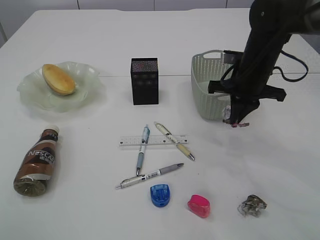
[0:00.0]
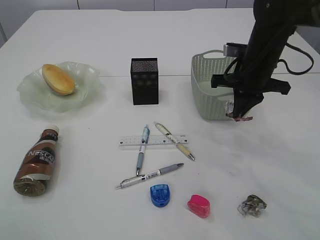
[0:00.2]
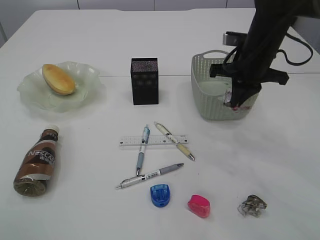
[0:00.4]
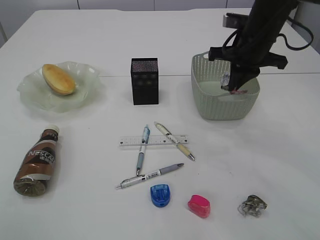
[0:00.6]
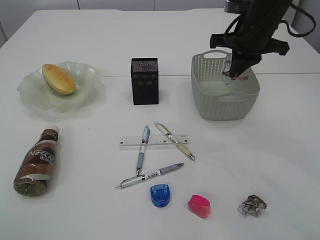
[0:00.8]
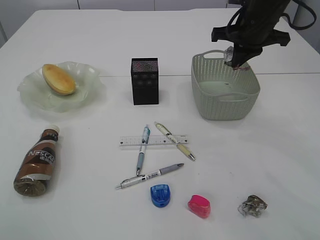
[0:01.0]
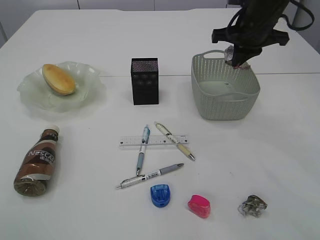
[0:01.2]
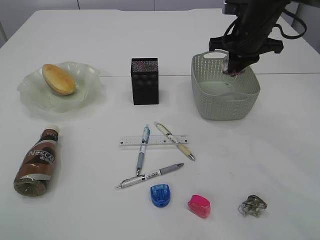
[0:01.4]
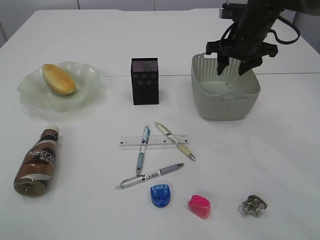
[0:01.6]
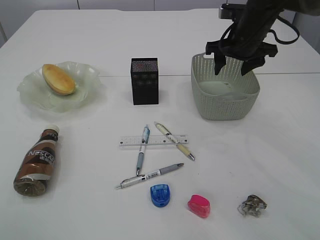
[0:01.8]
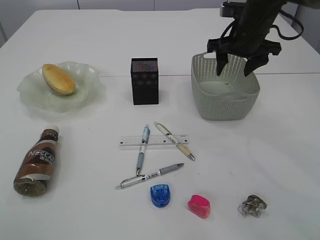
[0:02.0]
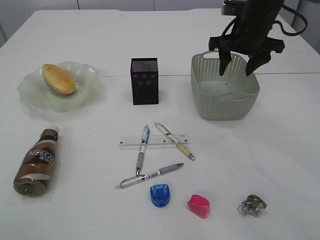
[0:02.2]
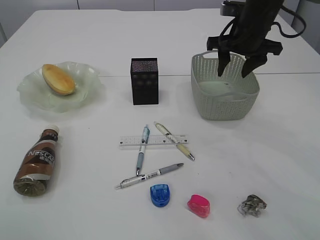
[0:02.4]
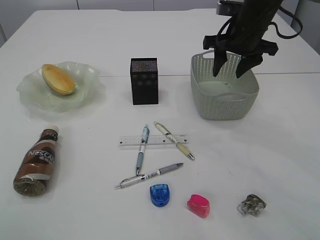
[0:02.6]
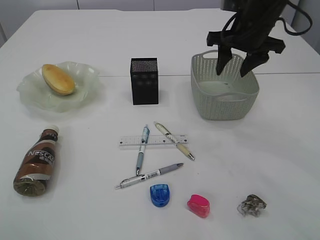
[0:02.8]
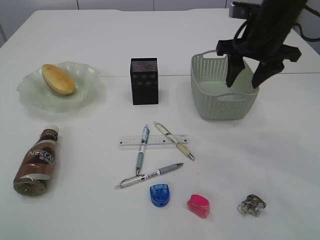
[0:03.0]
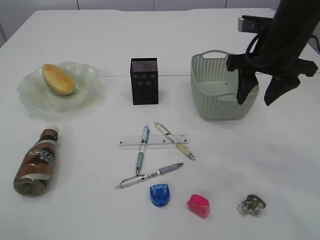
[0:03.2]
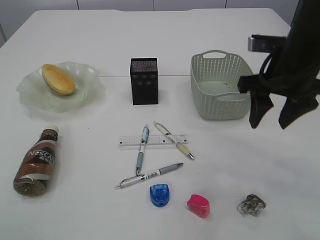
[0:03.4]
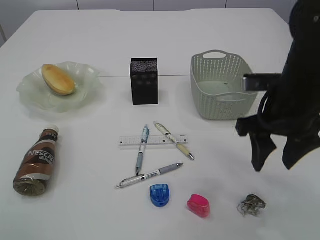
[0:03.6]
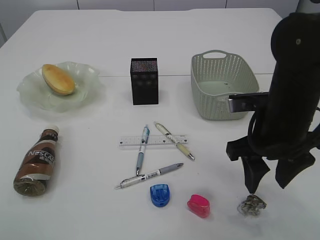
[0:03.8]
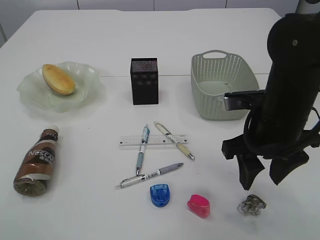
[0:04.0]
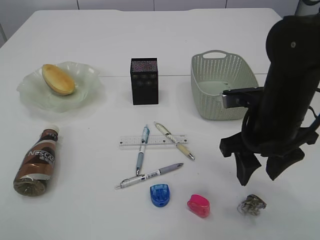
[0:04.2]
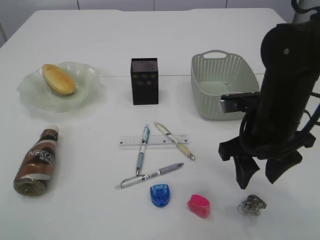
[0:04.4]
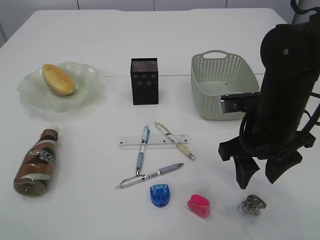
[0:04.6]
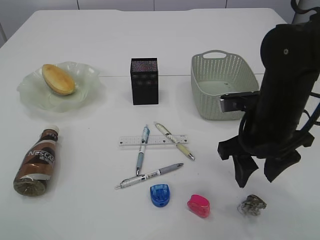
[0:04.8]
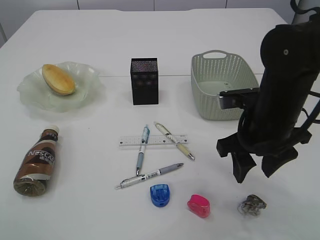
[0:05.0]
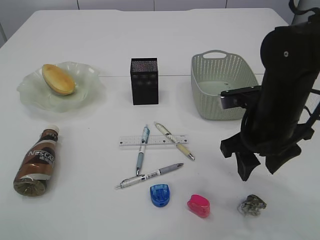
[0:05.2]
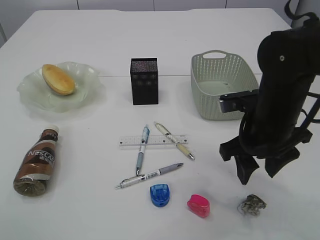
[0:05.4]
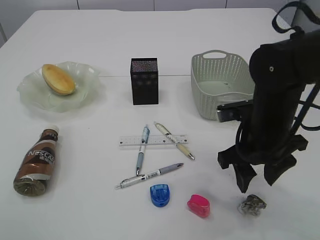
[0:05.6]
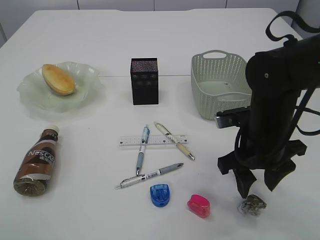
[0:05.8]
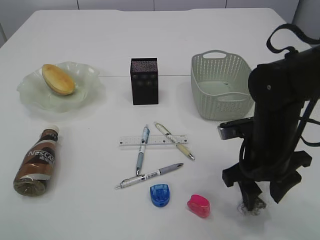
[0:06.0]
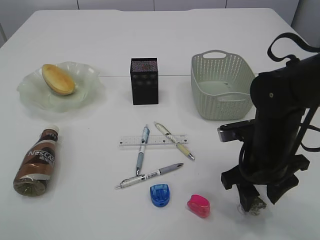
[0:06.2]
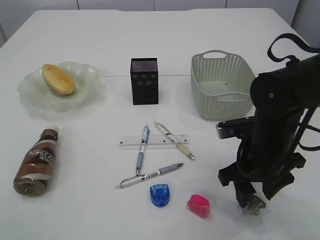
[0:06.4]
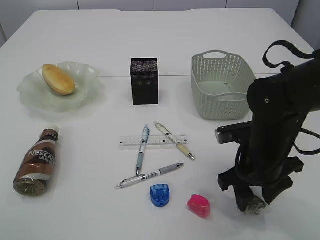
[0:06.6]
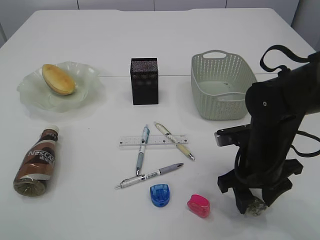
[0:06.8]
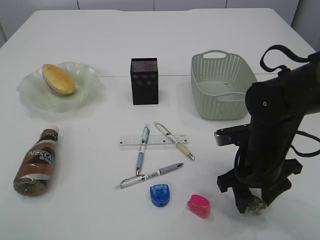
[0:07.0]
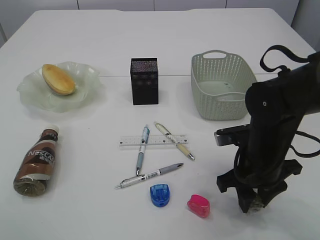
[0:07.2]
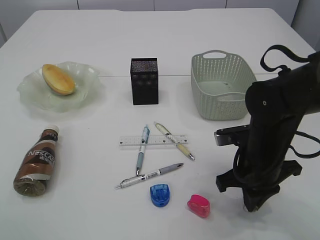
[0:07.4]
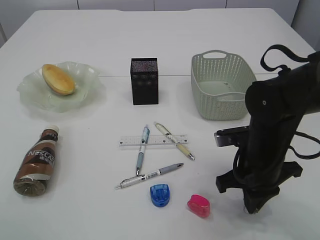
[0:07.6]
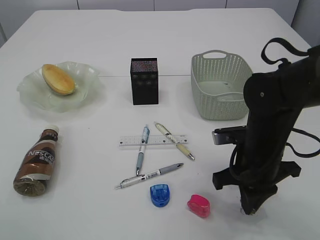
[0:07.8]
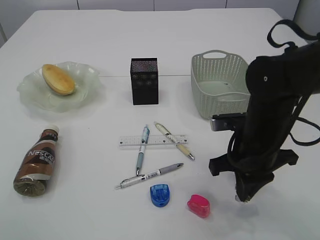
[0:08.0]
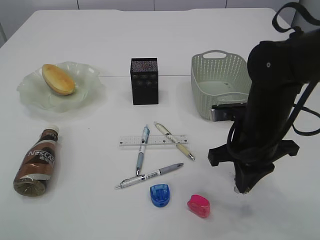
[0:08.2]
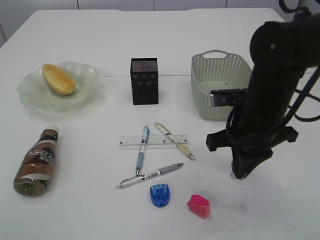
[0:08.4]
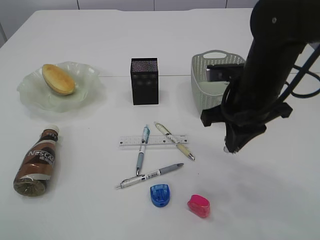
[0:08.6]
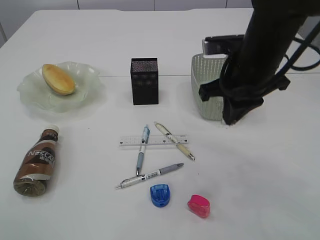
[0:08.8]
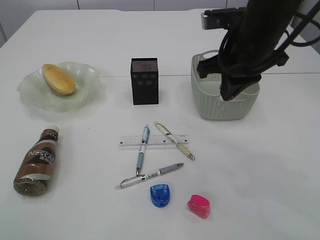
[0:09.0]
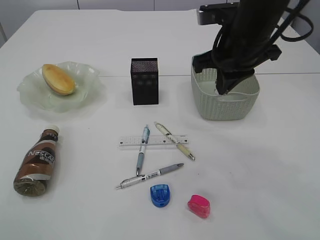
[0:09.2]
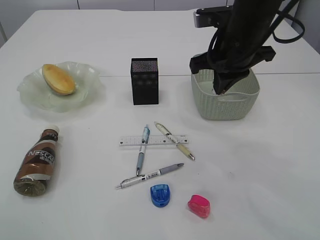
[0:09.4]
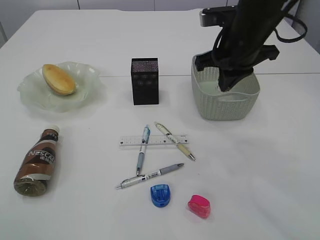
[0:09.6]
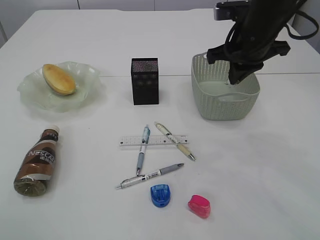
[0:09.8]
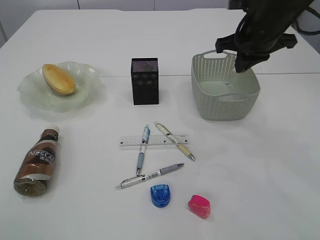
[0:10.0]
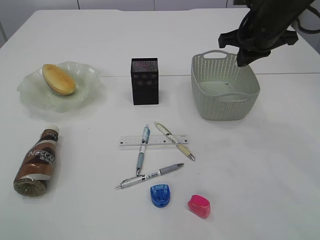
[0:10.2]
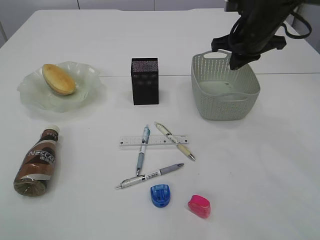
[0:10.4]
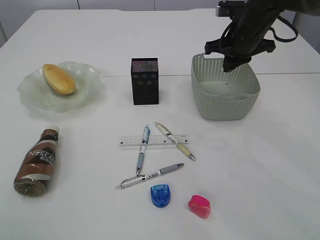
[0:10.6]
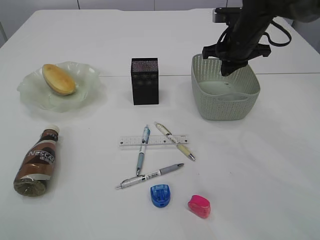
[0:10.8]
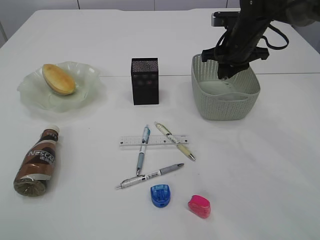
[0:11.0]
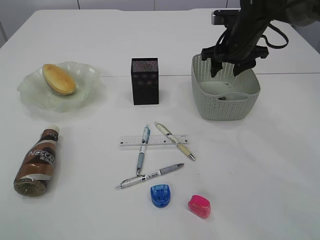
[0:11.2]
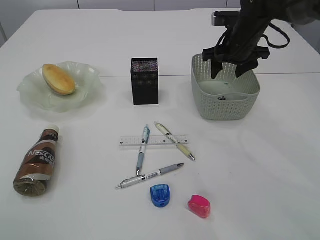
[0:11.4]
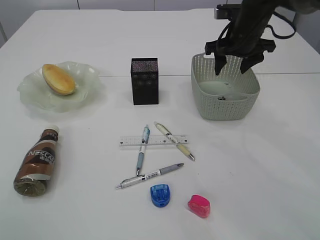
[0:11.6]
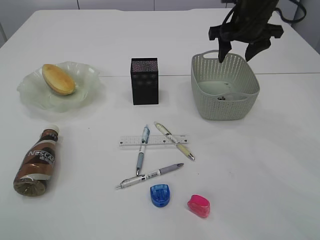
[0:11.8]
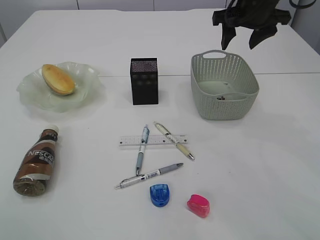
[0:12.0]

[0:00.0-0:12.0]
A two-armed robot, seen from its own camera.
Step, 0:00.4 to 0:02.8: Place the waste paper in the basket.
Step, 0:03.0 to 0:08.6: Pick up the waste paper.
Step, 0:08.8 to 0:11.6: Place the waste paper in the basket.
0:00.0 to 0:01.6: The right gripper is displaced forward by some 5 cm, and opens up.
0:01.6 to 0:03.0: The right gripper heads backward, covering some 5 cm.
0:03.0 to 0:04.4: The right gripper travels backward and downward by roughly 15 cm.
0:04.4 to 0:06.0: There are only small adjustments of the grippers.
0:06.0 to 0:07.6: The right gripper closes up.
0:07.6 to 0:09.0: The right gripper travels upward and forward by about 15 cm.
0:09.0 to 0:10.4: The right gripper travels forward and to the right by approximately 10 cm.
0:10.4 to 0:12.0: The right gripper opens up.

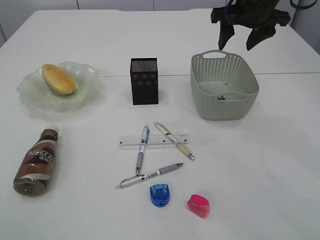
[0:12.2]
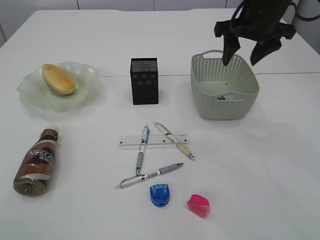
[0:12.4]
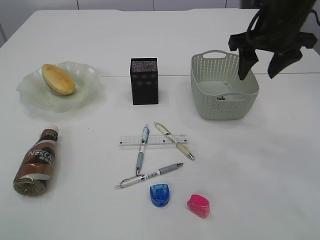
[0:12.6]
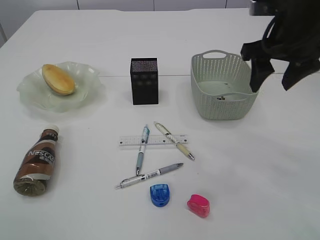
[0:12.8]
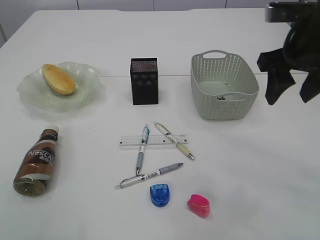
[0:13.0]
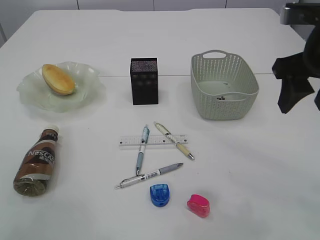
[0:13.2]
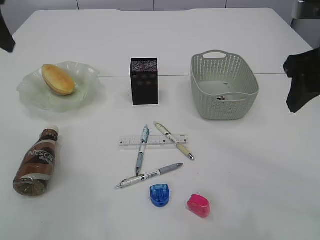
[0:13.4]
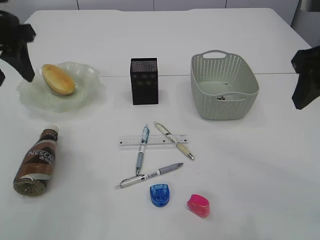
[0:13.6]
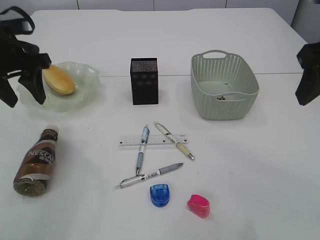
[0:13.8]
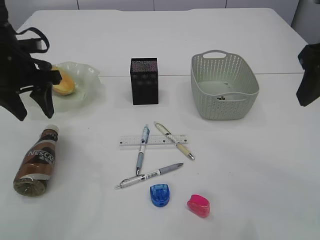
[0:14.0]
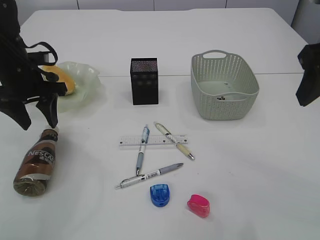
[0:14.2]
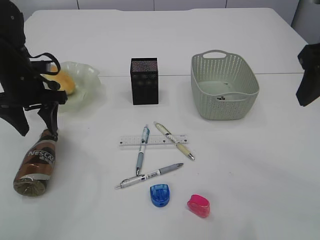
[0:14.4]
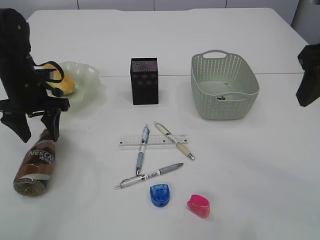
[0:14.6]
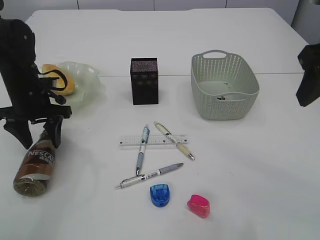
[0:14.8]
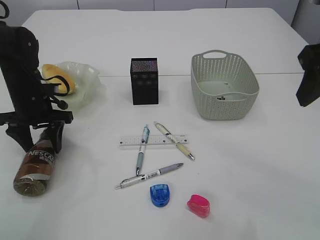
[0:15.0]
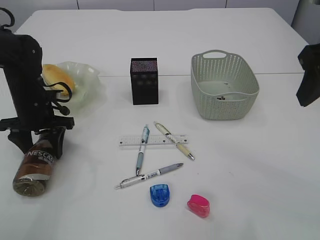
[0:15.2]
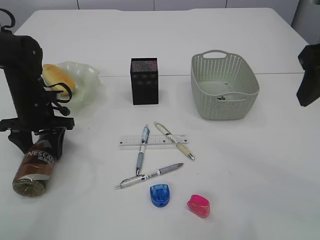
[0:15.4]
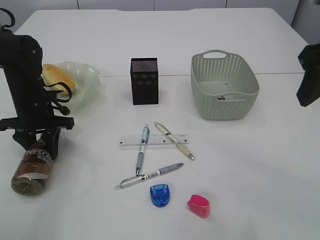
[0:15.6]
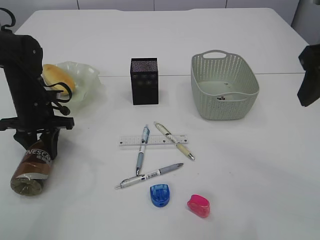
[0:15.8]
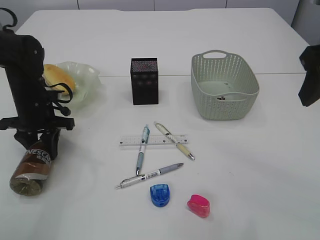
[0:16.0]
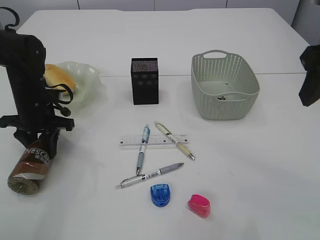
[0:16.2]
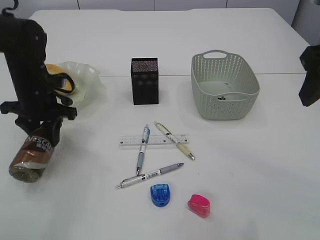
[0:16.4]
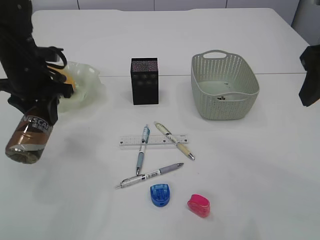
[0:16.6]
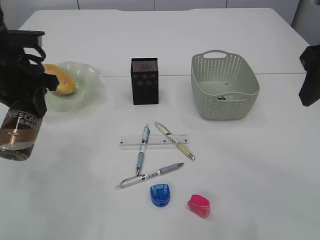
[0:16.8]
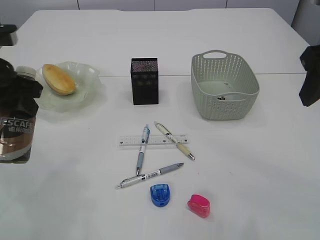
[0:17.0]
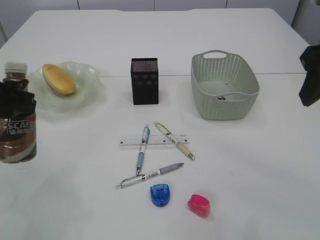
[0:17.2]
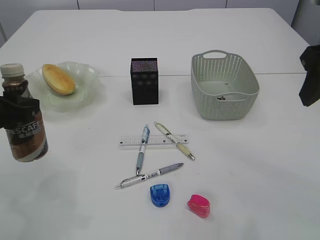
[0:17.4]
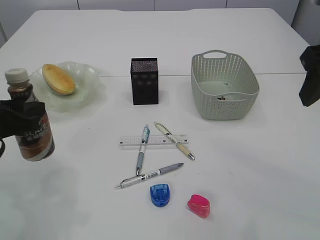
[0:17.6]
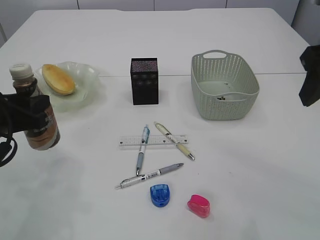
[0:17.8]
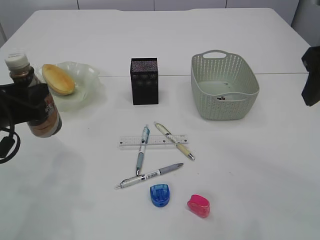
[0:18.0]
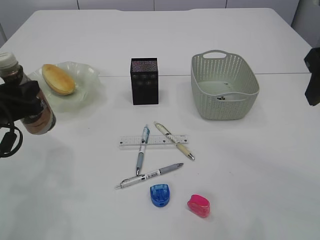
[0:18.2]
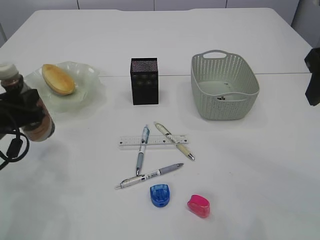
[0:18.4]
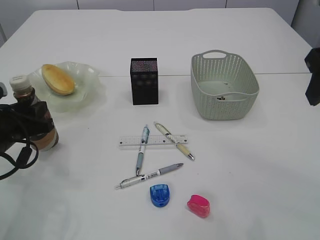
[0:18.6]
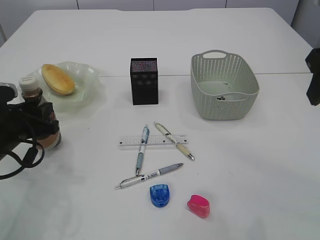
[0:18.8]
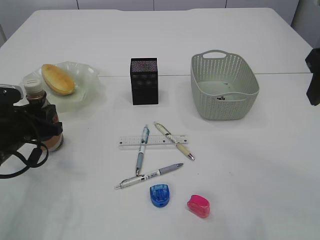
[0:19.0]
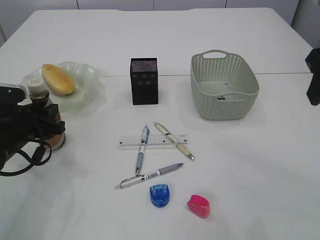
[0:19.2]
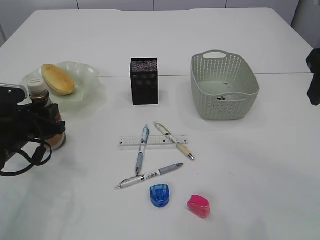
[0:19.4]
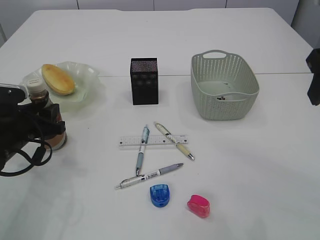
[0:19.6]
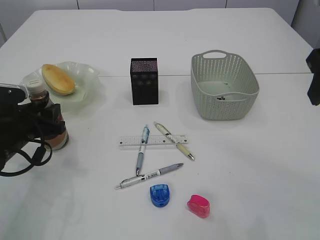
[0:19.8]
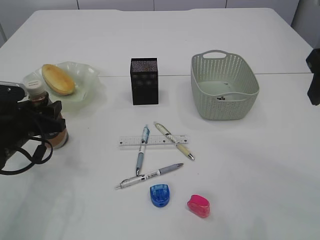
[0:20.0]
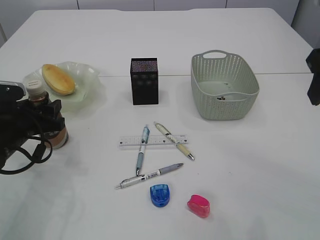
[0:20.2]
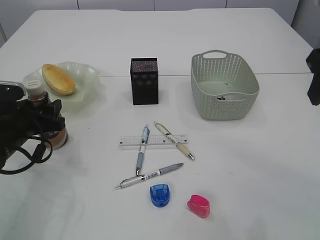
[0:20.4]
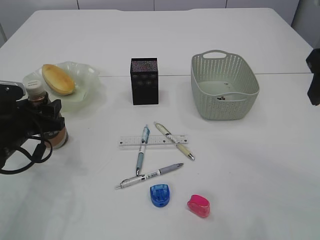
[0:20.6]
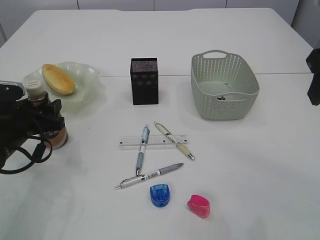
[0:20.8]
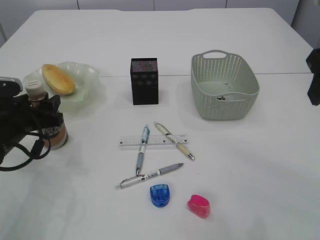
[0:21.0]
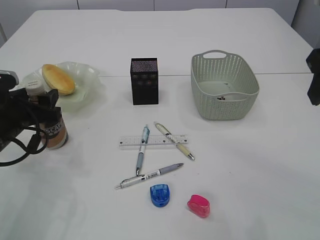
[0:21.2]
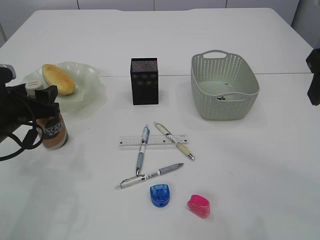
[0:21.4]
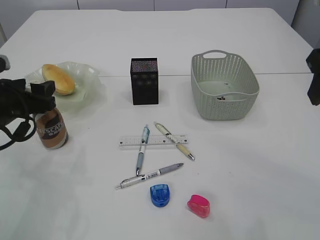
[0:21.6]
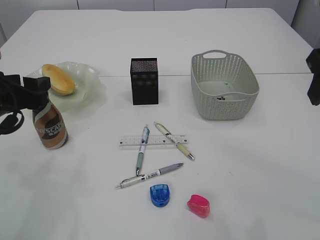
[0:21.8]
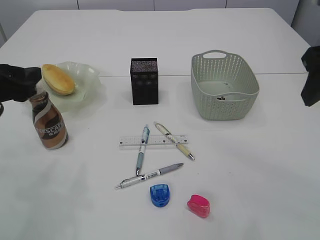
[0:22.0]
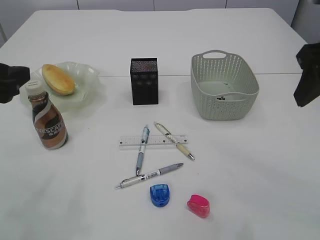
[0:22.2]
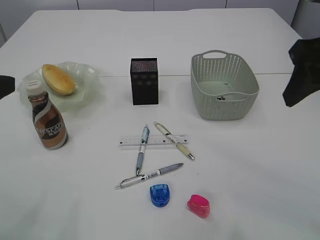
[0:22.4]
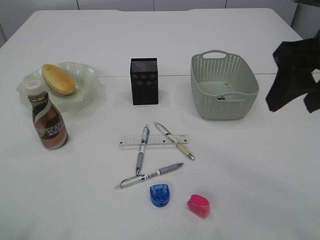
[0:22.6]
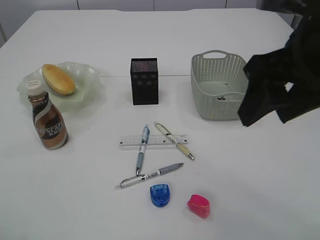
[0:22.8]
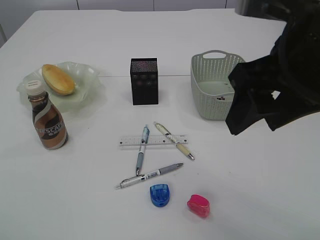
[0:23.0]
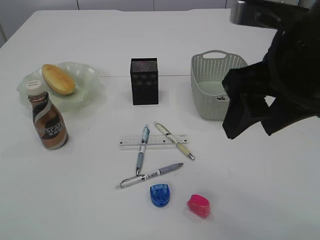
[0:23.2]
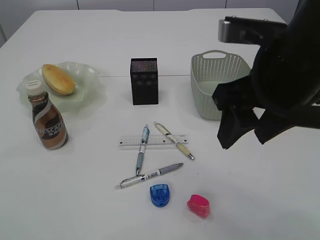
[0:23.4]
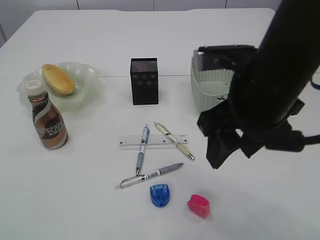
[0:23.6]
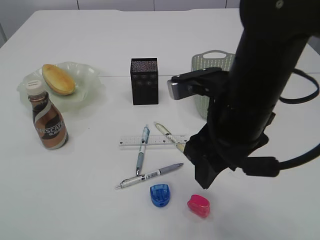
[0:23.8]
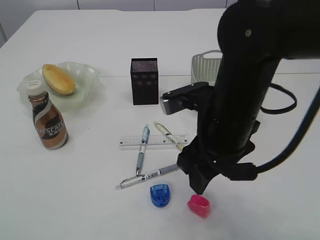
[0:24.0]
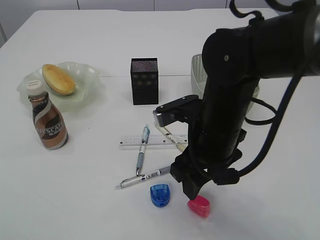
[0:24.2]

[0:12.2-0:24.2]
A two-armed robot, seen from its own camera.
Step, 0:12.2 to 0:16.4: Pick up the bottle with the left arm.
Step, 0:16.6 to 0:22.0: Place the bottle.
0:12.2 to 0:13.8: The right gripper shifts roughly 20 cm backward. The left gripper is displaced downward and forward by approximately 30 cm.
0:13.8 to 0:15.2: The left gripper shifts roughly 15 cm downward.
0:15.2 to 0:16.6: The left gripper goes approximately 10 cm upward, and closes.
0:16.6 to 0:18.2: The left gripper shifts roughly 10 cm backward.
0:18.2 to 0:19.8: The left gripper moves downward, some 5 cm.
0:19.8 to 0:21.2: The grippers move only a little.
0:21.2 to 0:22.6: The left gripper heads upward and backward, covering about 20 cm.
0:22.6 to 0:24.2: The right gripper goes roughly 20 cm downward and to the left. The left gripper goes roughly 5 cm backward.
